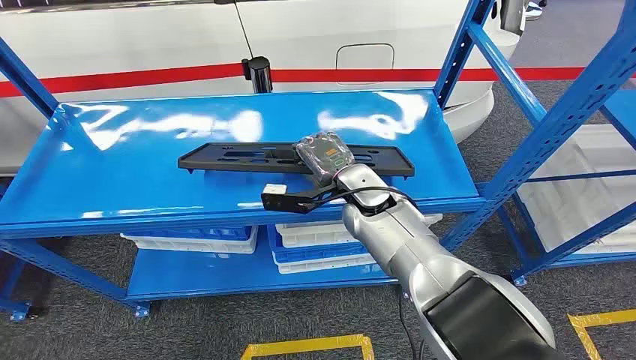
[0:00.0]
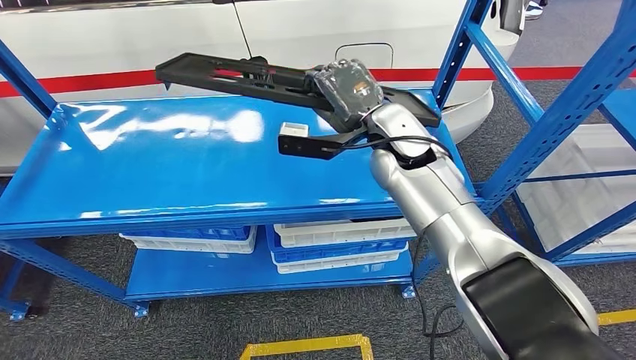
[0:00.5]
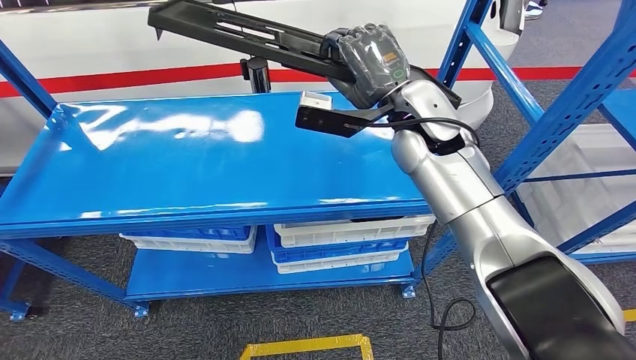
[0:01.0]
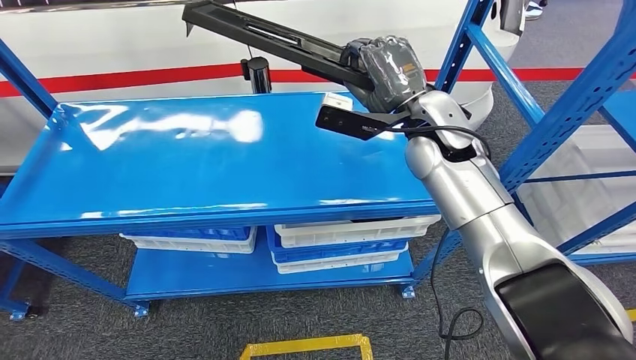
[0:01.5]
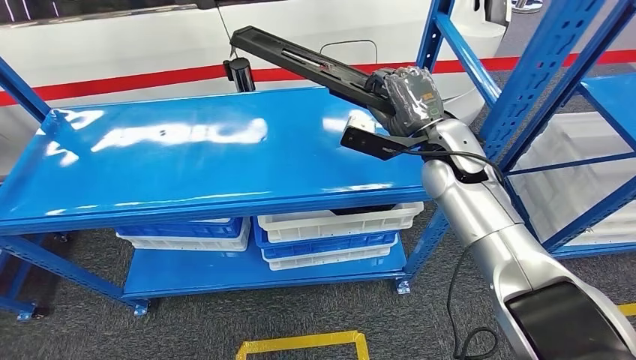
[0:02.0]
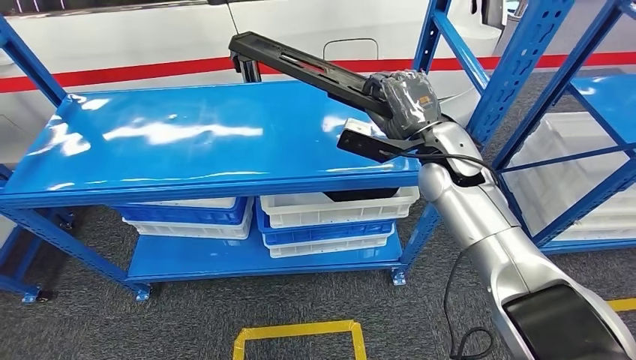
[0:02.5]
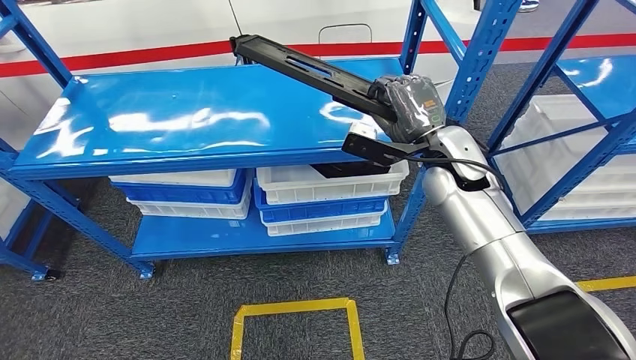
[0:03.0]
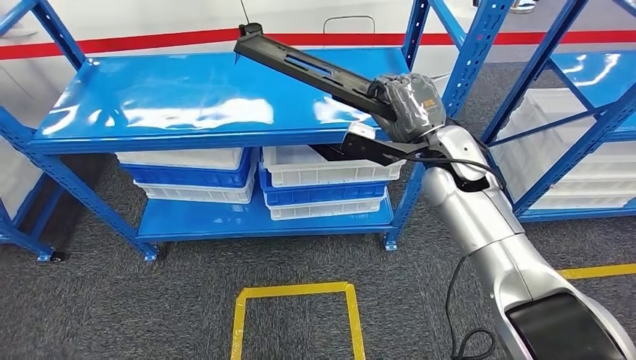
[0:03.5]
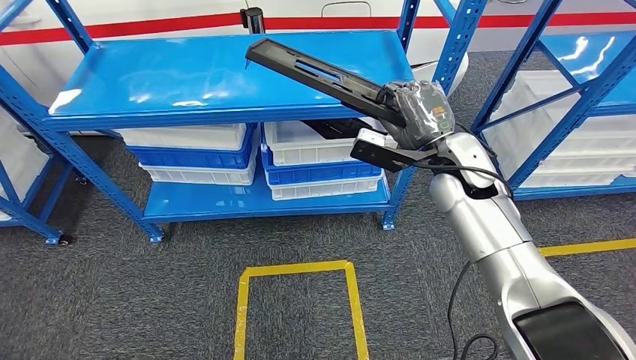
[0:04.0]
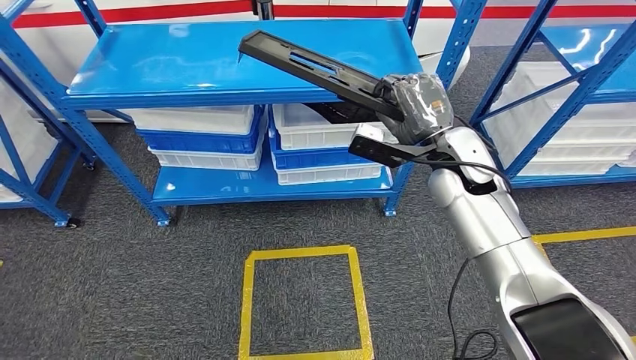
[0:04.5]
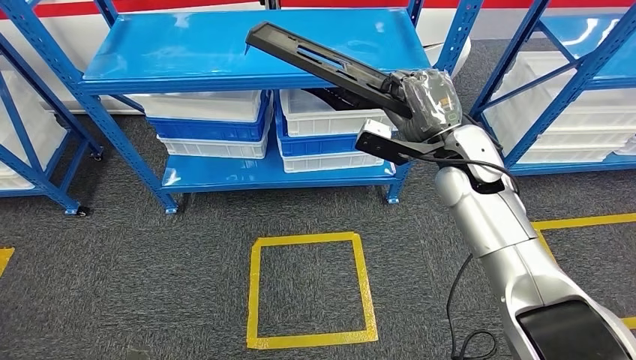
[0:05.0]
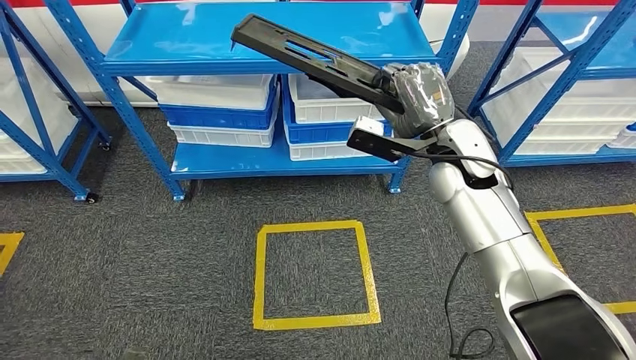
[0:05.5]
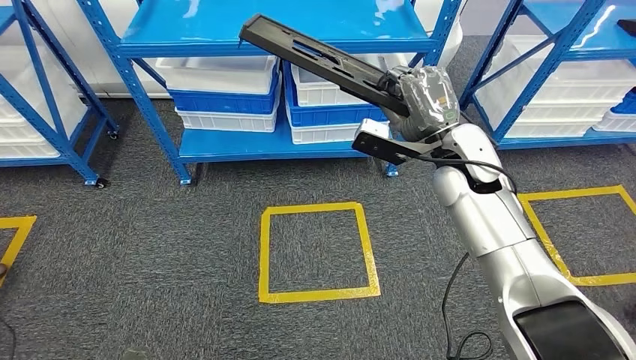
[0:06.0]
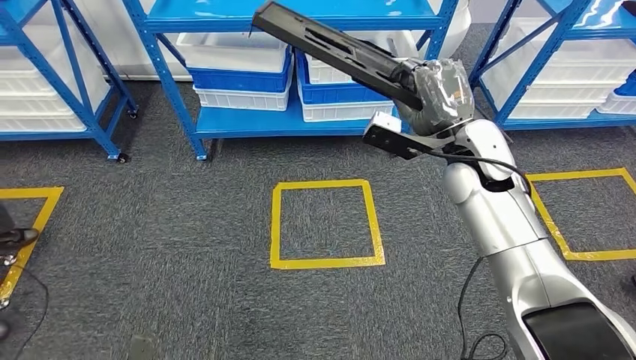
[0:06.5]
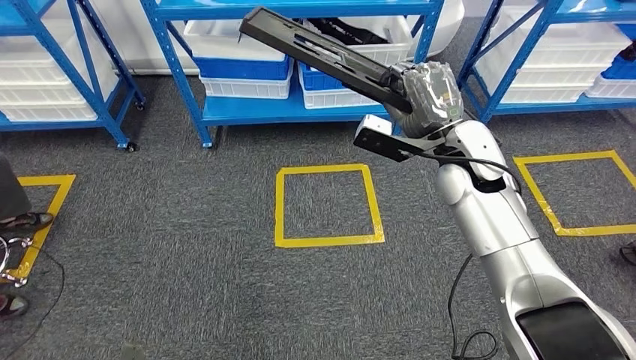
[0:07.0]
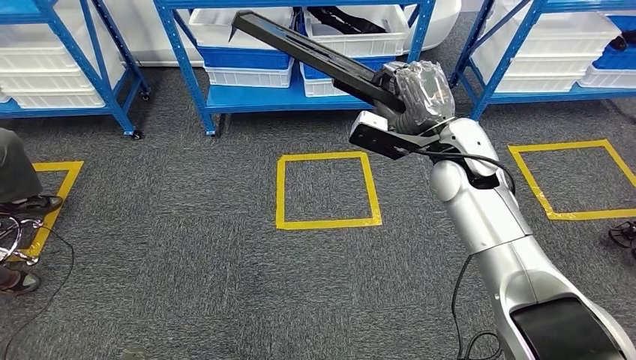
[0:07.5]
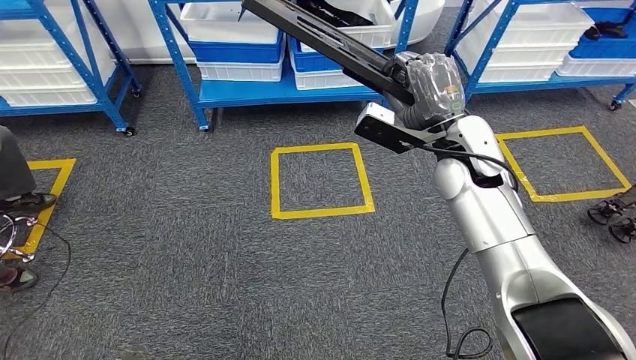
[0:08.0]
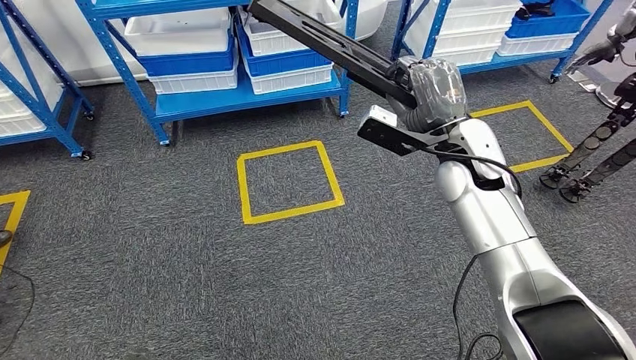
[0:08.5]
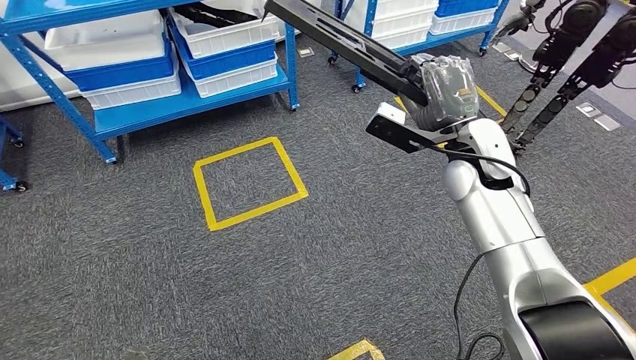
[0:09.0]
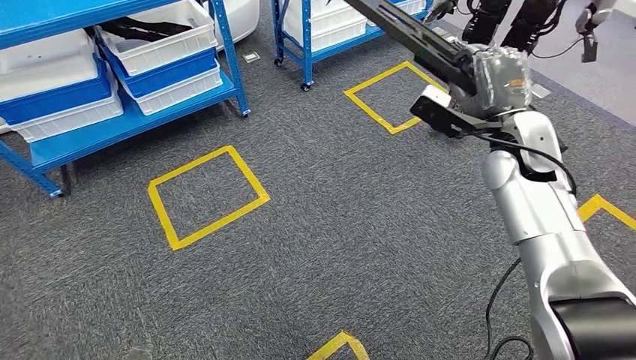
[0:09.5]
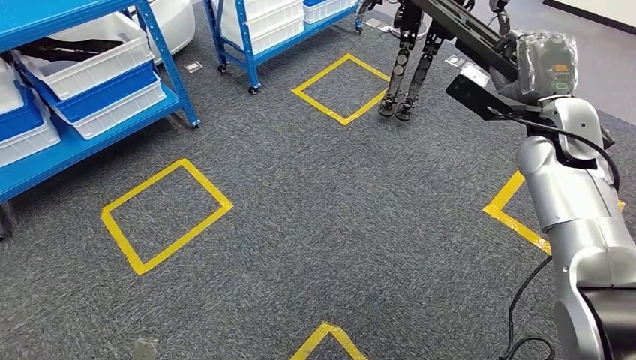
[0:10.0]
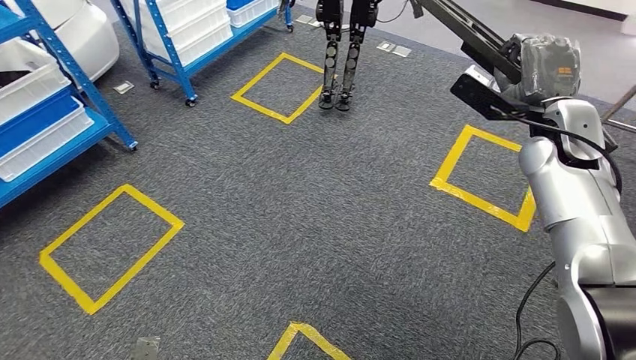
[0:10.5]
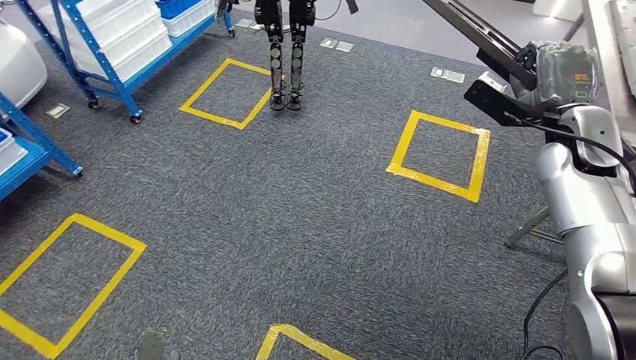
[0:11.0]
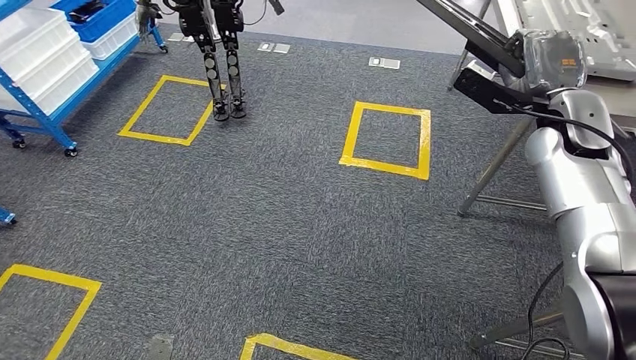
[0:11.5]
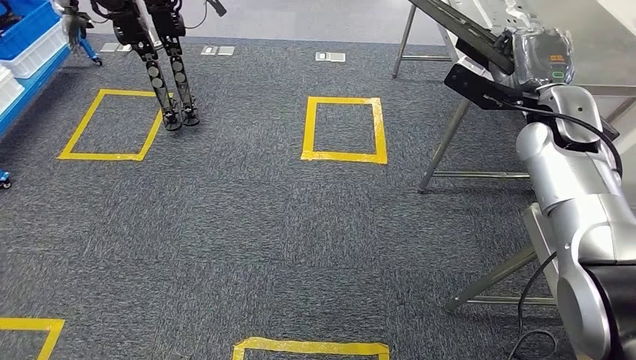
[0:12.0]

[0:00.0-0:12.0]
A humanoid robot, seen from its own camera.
Step, 0:00.0 to 0:04.5: Pick up the large material from the shelf.

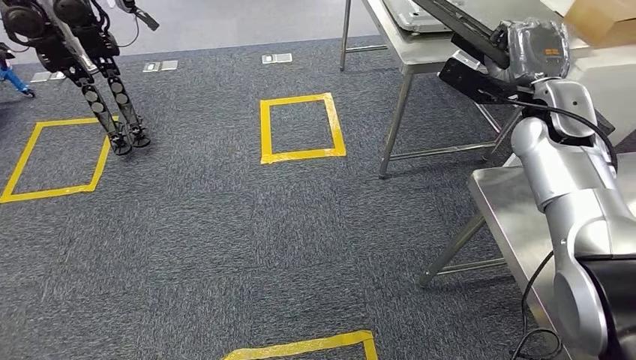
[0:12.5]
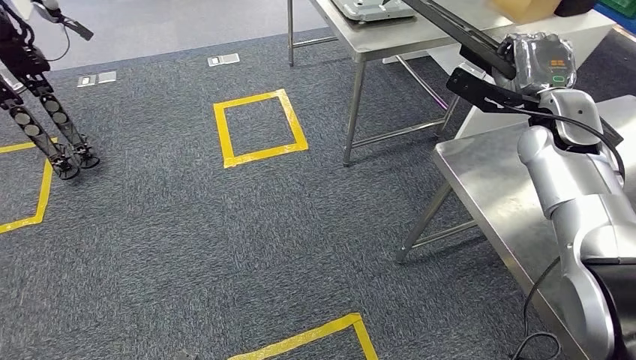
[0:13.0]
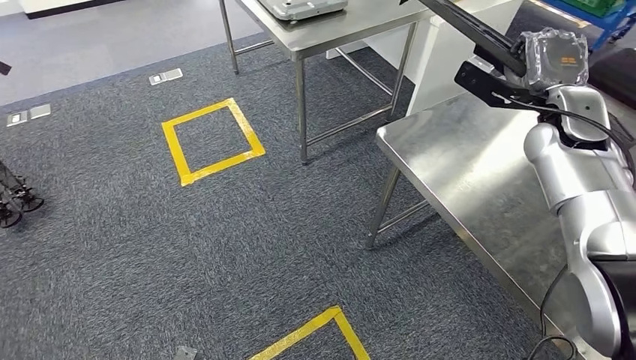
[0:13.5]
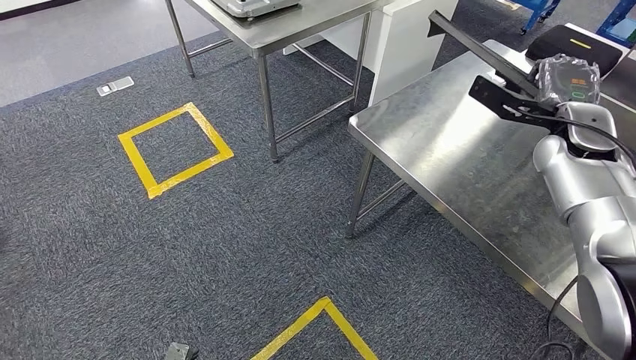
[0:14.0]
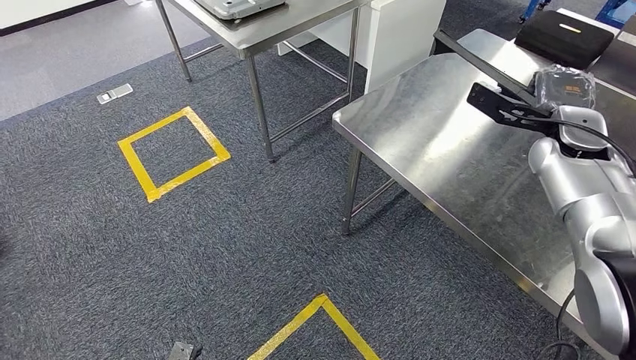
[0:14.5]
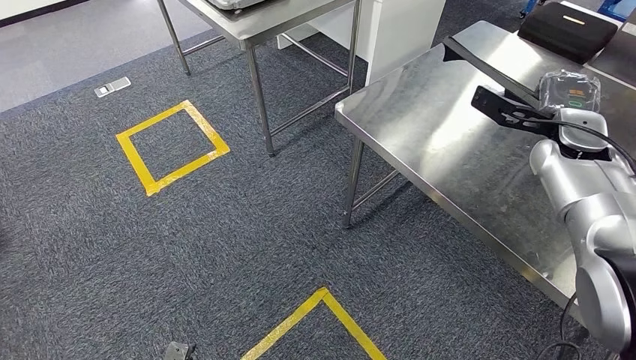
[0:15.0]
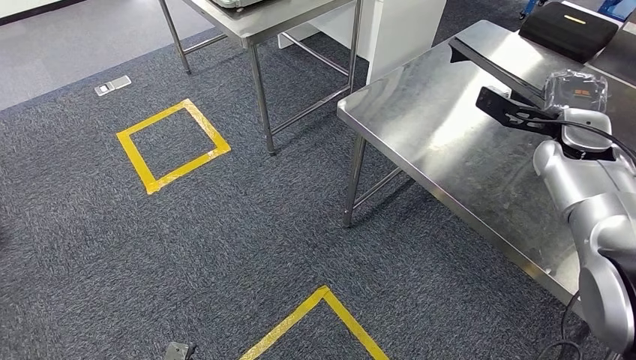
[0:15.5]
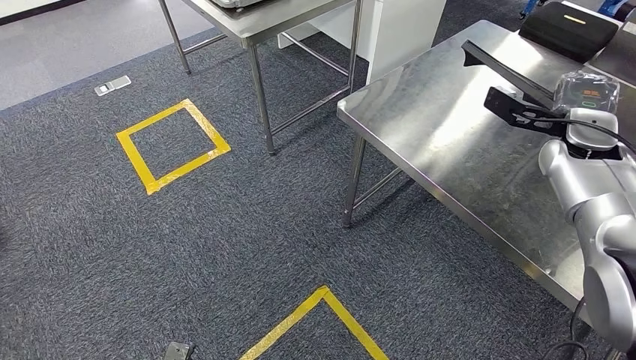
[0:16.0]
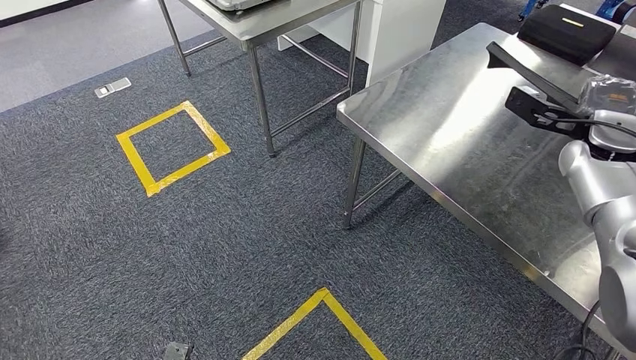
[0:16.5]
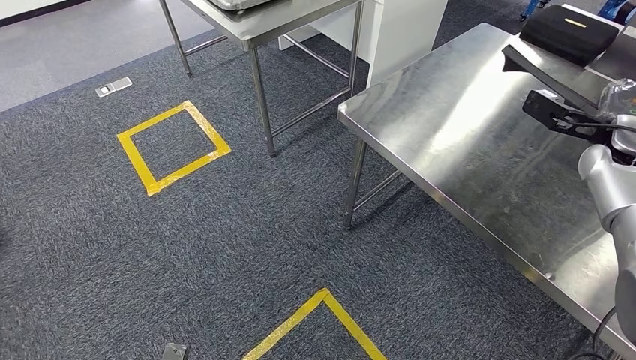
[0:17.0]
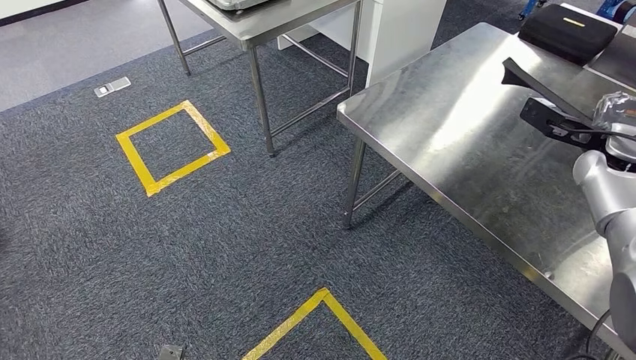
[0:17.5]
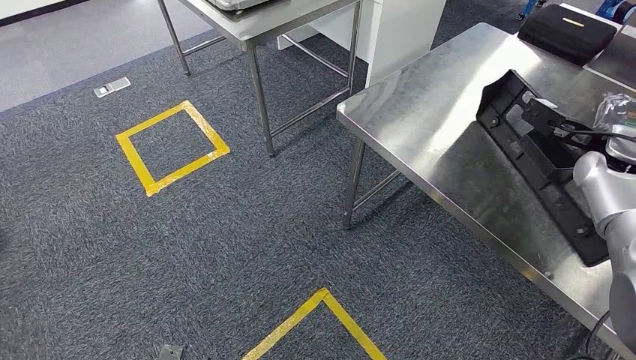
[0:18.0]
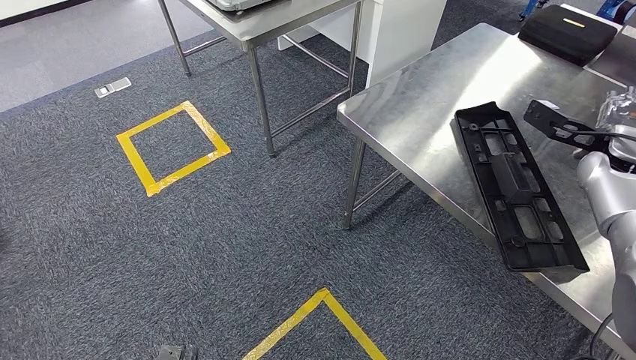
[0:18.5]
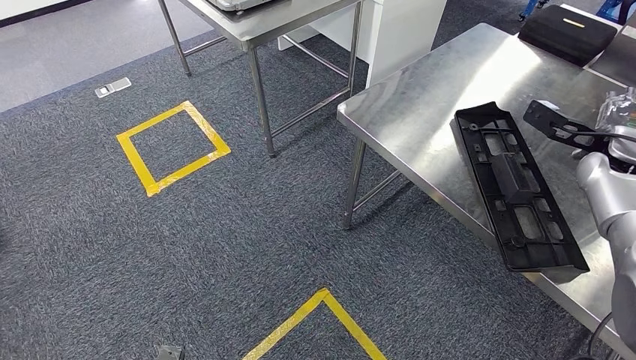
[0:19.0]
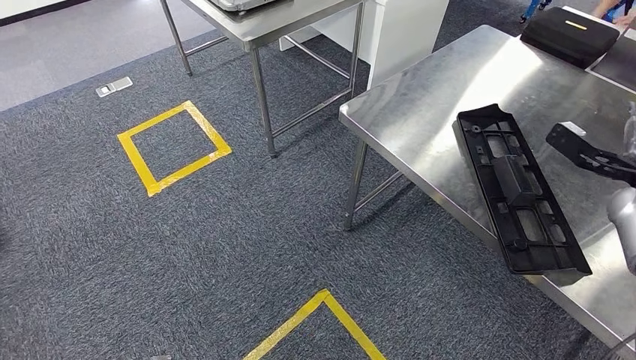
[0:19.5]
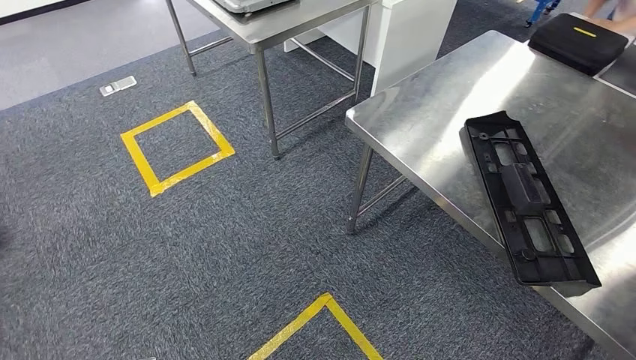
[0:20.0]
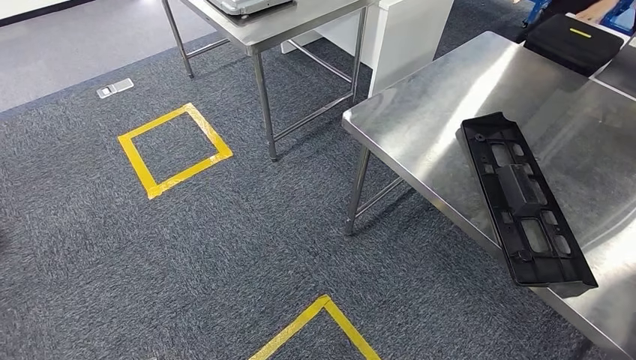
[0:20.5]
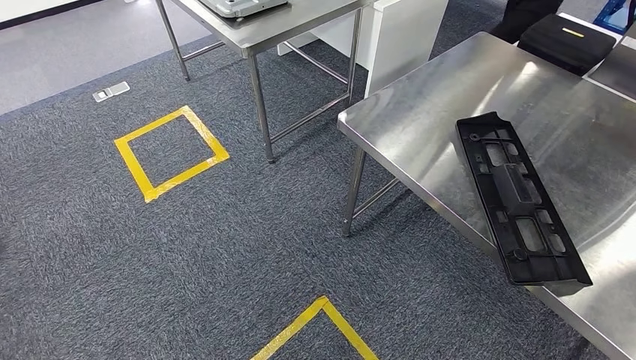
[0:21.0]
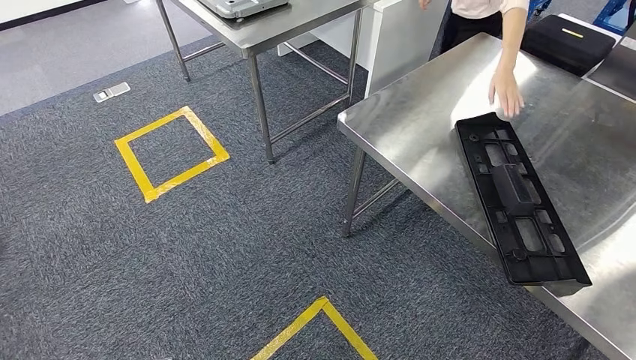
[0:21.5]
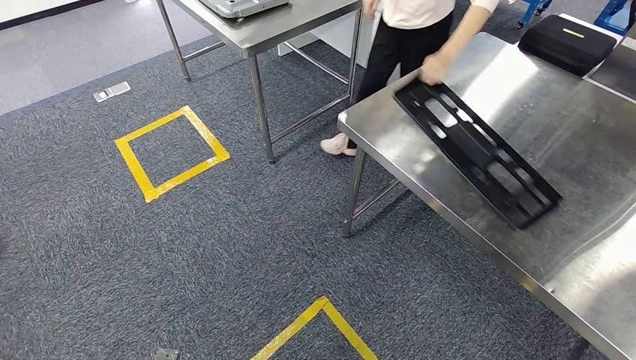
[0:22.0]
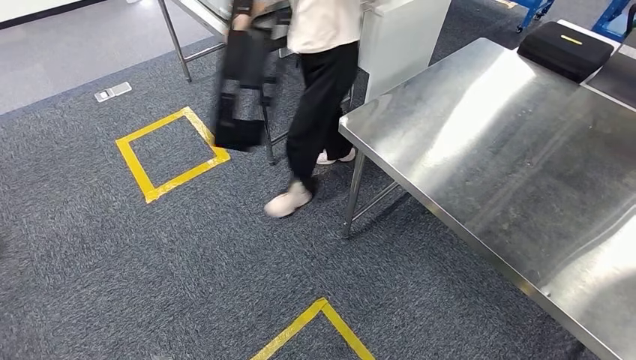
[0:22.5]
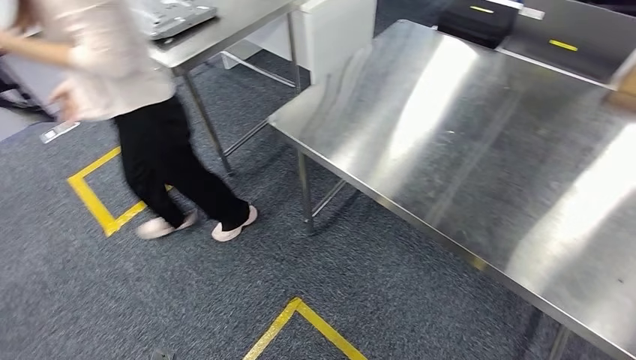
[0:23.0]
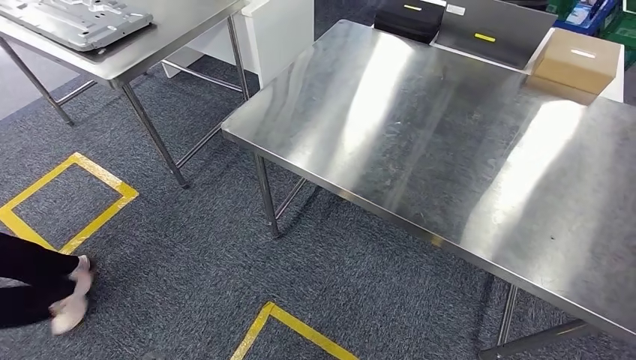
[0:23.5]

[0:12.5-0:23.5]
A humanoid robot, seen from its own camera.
Step, 0:12.5 to 0:14.5: Move the large material to the workbench.
Step, 0:15.5 to 0:21.5: Insert the large material into the corresponding slot on the workbench.
0:16.0 to 0:18.0: The right hand moves to the right, roughly 5 cm.
